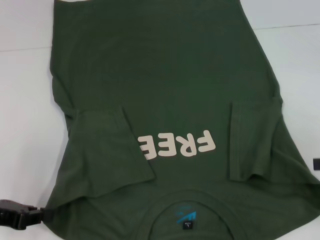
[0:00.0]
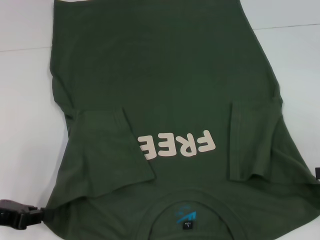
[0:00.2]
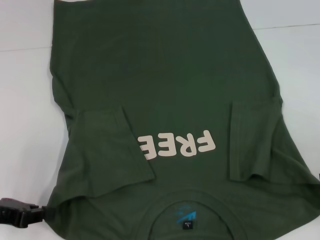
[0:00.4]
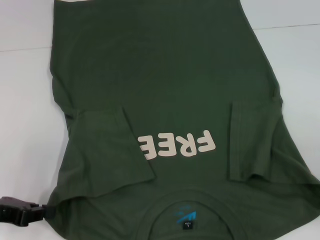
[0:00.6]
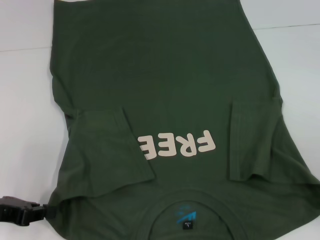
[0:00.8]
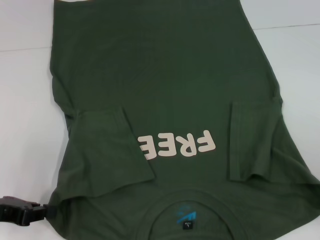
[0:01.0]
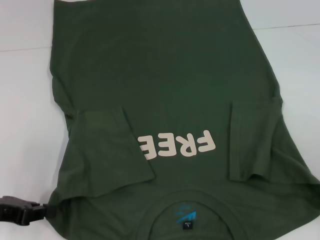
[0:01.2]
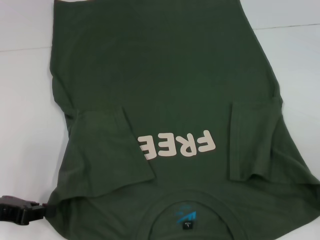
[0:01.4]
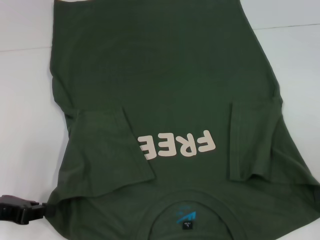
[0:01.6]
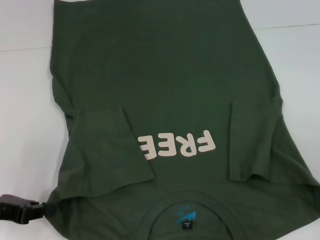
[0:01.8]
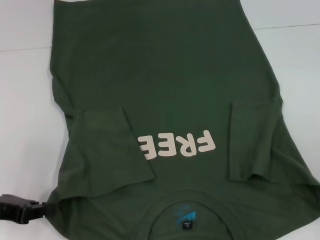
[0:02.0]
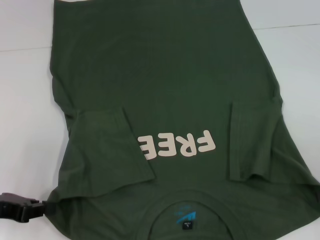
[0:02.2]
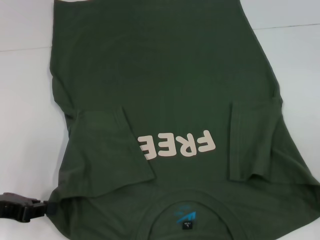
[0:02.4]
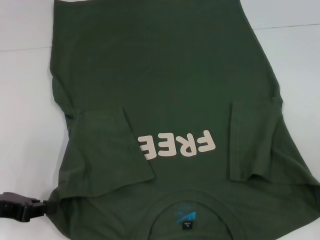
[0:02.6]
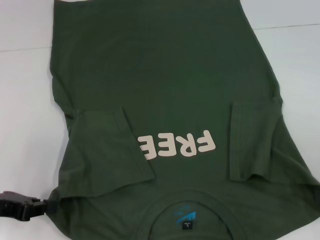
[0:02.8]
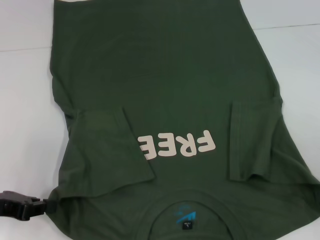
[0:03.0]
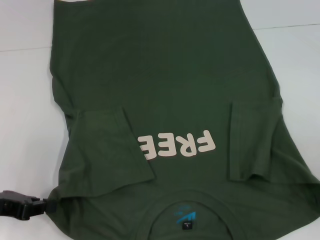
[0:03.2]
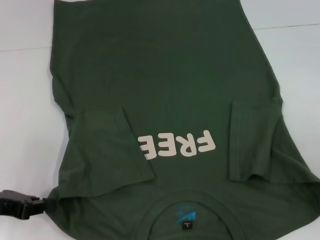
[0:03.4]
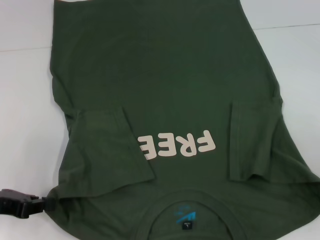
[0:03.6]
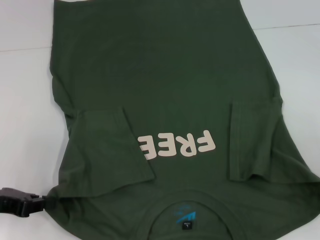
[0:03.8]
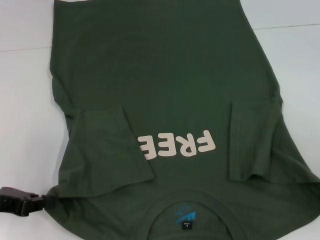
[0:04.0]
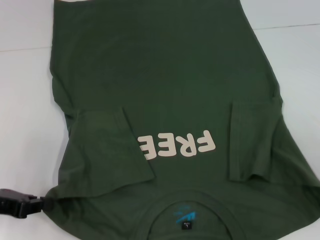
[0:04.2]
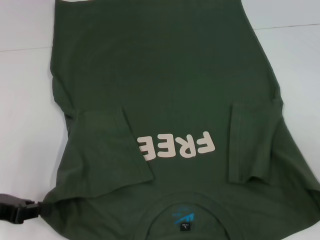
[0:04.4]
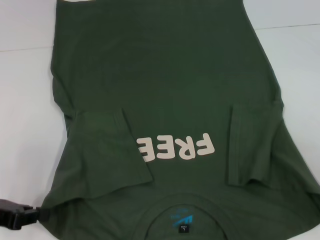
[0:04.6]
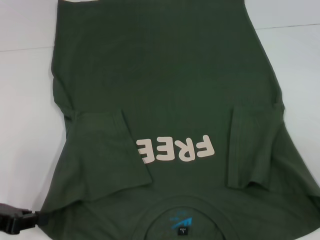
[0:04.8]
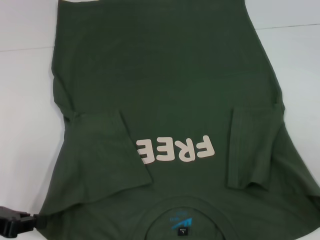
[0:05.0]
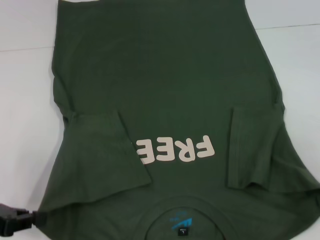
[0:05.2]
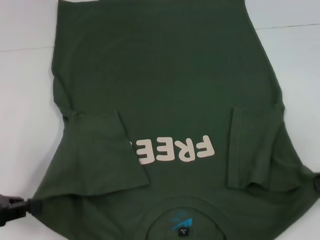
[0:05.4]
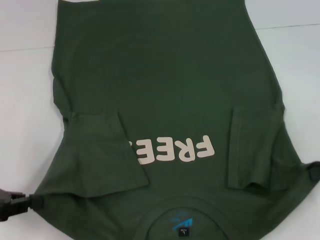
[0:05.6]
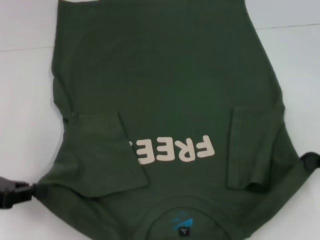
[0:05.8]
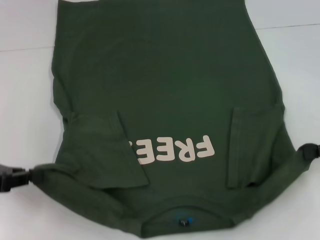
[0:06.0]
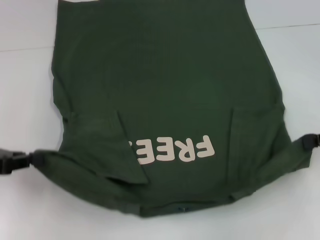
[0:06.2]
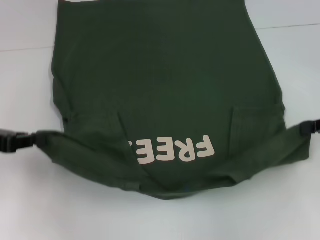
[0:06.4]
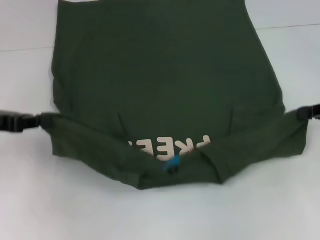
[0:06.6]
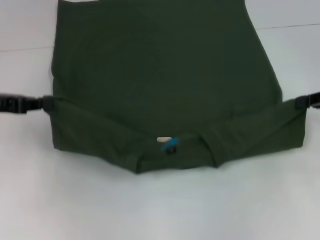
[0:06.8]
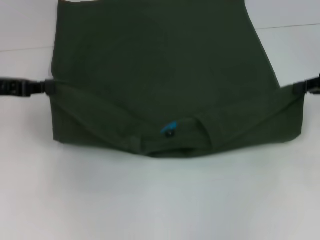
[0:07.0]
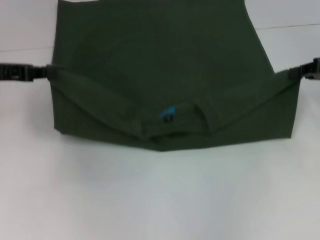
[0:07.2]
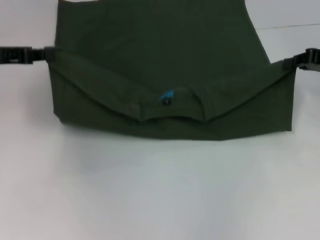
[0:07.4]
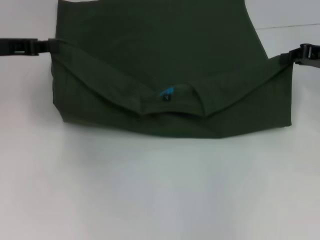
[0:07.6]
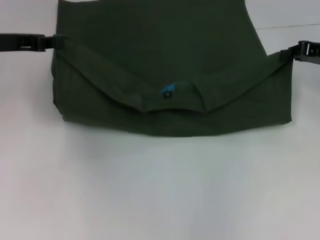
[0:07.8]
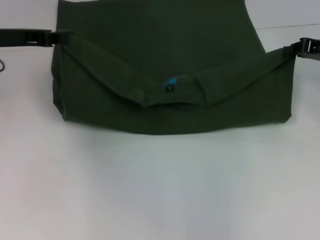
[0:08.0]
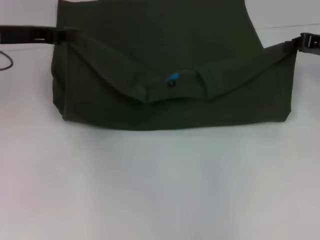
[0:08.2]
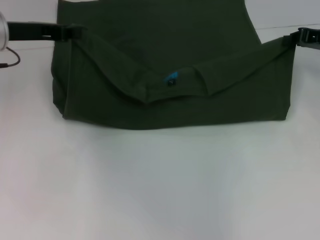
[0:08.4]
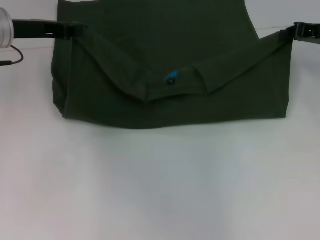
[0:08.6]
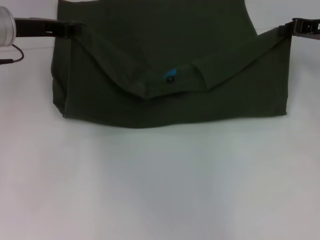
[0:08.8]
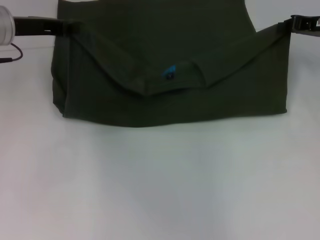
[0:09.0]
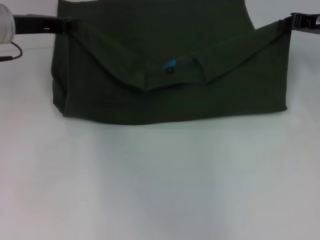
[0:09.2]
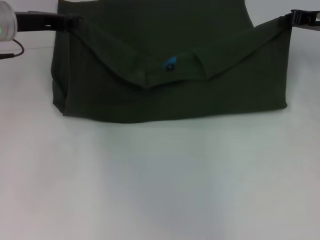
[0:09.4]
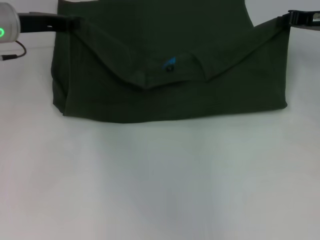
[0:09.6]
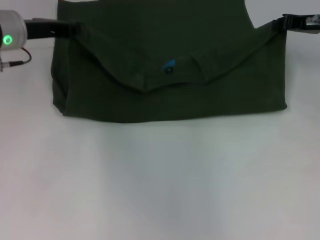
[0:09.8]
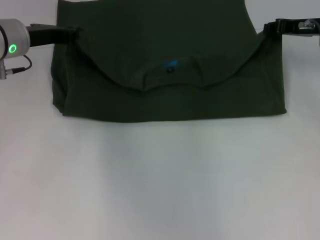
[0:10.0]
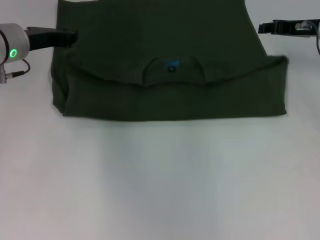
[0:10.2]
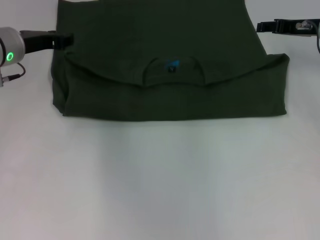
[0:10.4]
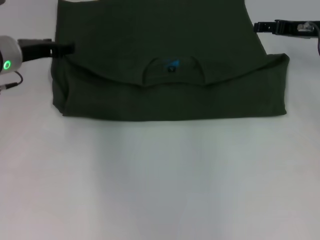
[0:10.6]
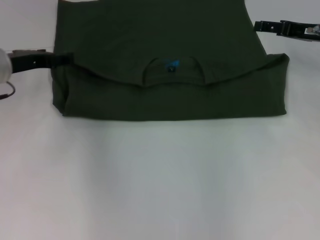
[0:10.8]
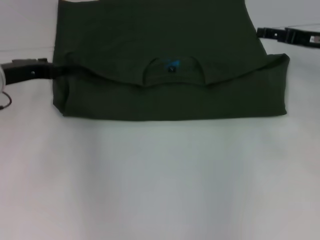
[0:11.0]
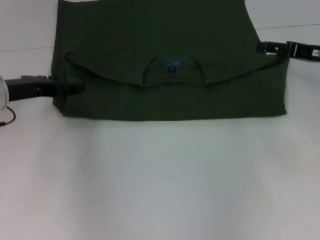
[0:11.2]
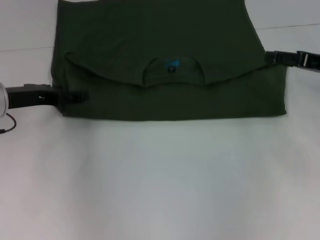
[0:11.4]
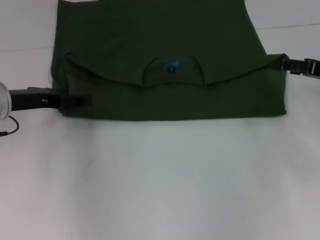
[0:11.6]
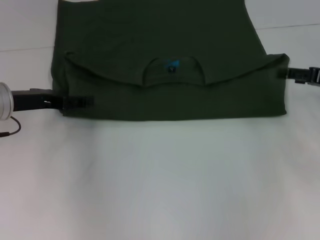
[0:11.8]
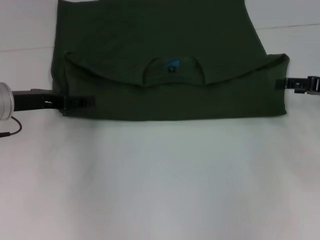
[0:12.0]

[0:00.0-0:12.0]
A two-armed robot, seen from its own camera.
Step, 0:00.0 to 0:10.2: Fold the clothes with your left hand.
Step, 0:00.0 to 0:10.2: Fold the clothes with your right hand.
0:00.0 to 0:01.6: The grippers stay close to where they were, moving slightly.
0:01.6 to 0:03.0: Both grippers stay put.
0:03.0 to 0:04.4: The right gripper closes its fingers.
0:04.4 to 0:06.0: The right gripper moves about 5 cm.
0:06.0 to 0:07.6: The right gripper moves forward, roughly 10 cm. The left gripper is displaced forward and upward by about 15 cm.
0:07.6 to 0:09.0: The left gripper moves to the right, roughly 5 cm.
0:09.0 to 0:10.4: The right gripper opens its fingers.
0:10.4 to 0:12.0: The right gripper travels backward and to the right by some 10 cm, and opens. Meanwhile the left gripper moves backward, about 5 cm, and opens.

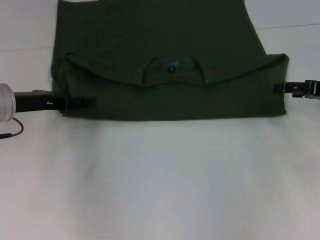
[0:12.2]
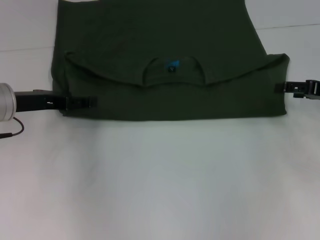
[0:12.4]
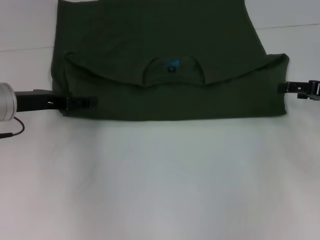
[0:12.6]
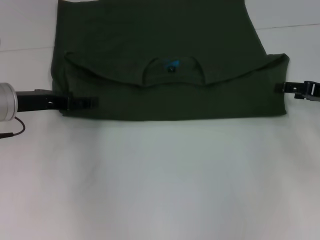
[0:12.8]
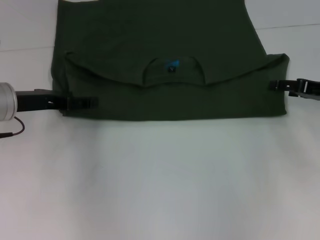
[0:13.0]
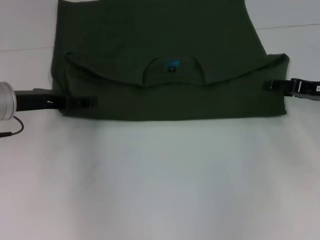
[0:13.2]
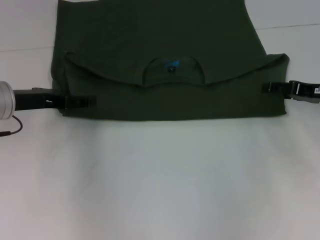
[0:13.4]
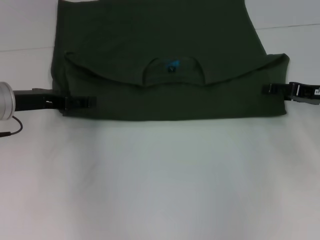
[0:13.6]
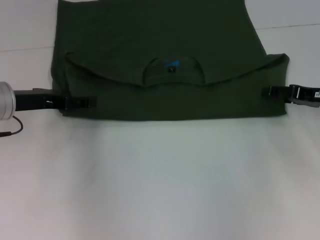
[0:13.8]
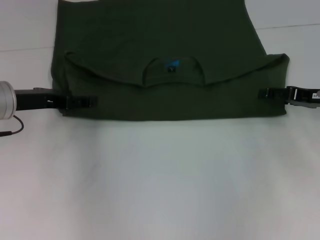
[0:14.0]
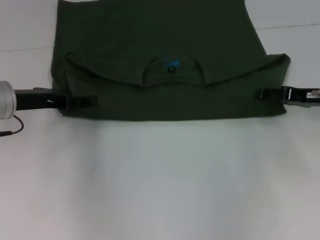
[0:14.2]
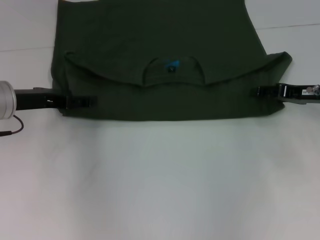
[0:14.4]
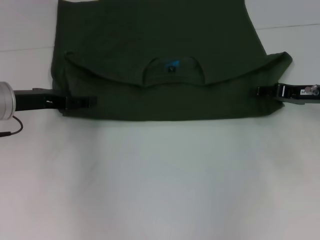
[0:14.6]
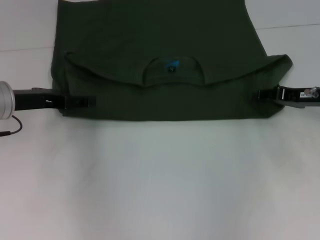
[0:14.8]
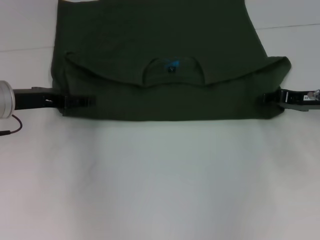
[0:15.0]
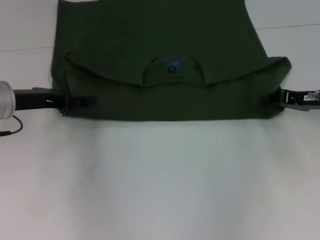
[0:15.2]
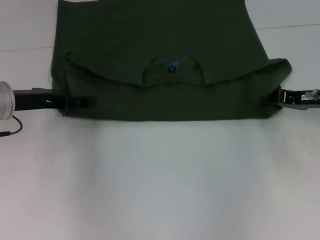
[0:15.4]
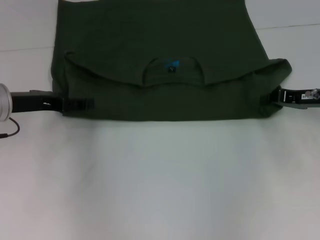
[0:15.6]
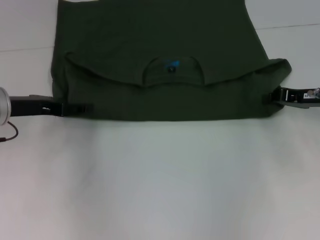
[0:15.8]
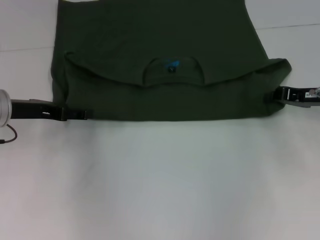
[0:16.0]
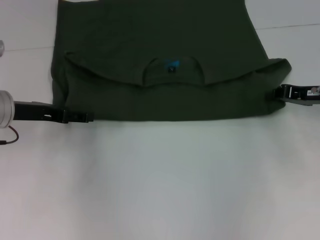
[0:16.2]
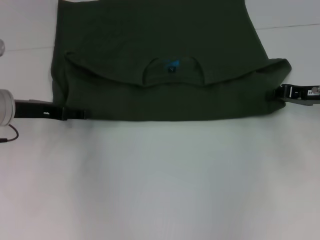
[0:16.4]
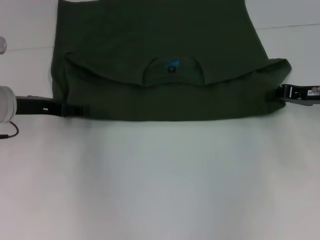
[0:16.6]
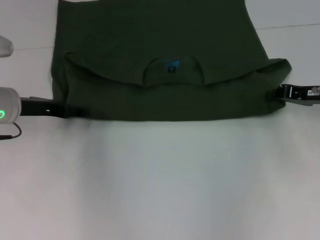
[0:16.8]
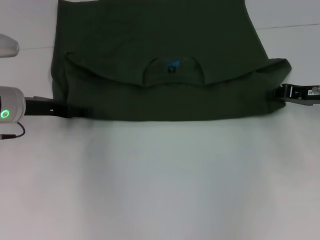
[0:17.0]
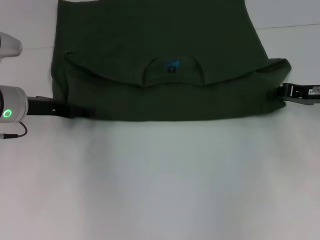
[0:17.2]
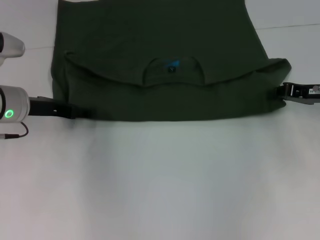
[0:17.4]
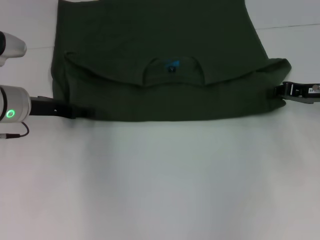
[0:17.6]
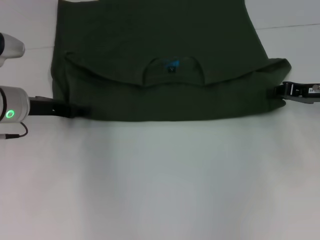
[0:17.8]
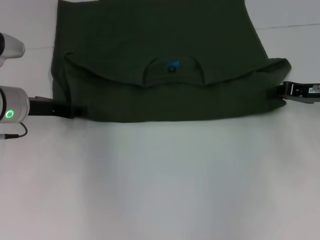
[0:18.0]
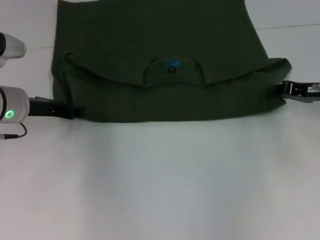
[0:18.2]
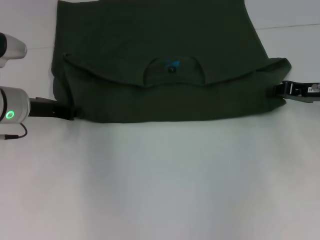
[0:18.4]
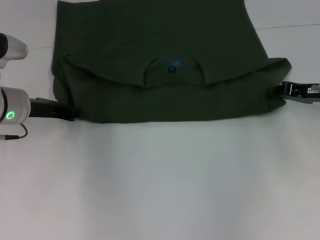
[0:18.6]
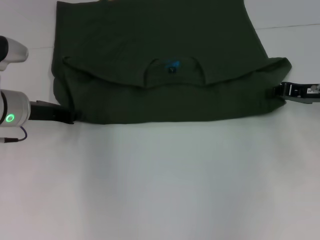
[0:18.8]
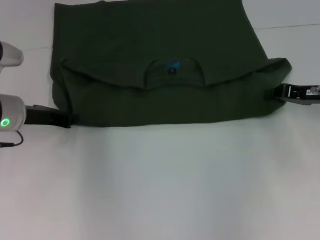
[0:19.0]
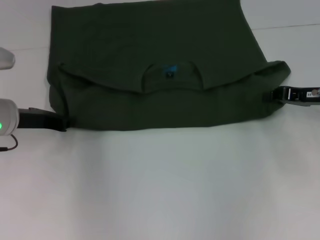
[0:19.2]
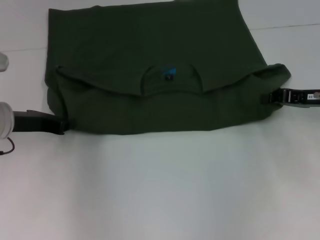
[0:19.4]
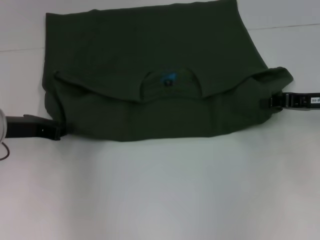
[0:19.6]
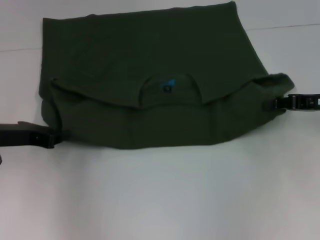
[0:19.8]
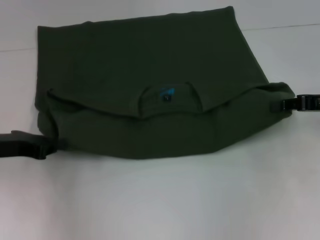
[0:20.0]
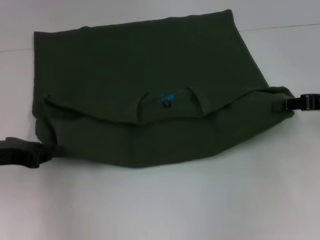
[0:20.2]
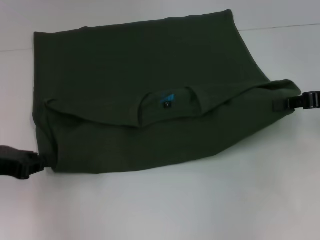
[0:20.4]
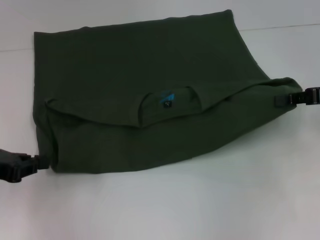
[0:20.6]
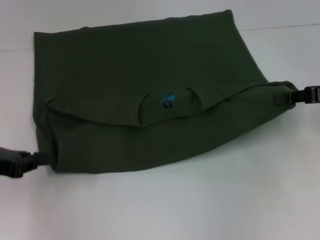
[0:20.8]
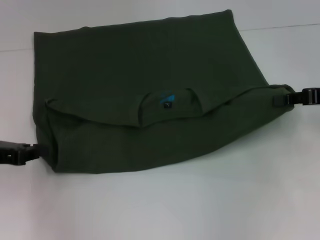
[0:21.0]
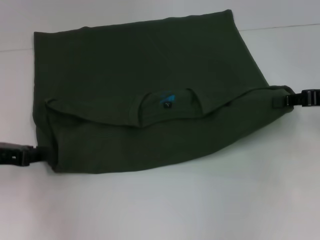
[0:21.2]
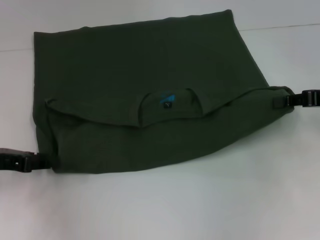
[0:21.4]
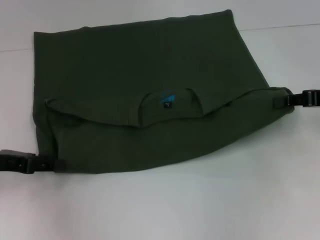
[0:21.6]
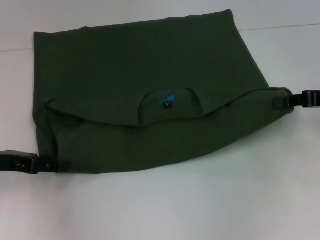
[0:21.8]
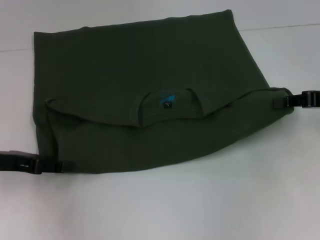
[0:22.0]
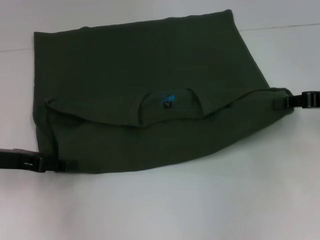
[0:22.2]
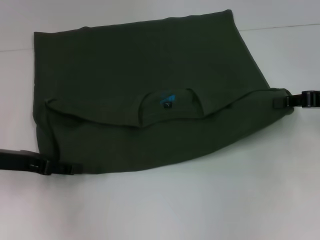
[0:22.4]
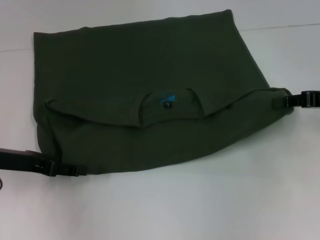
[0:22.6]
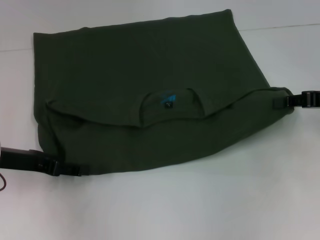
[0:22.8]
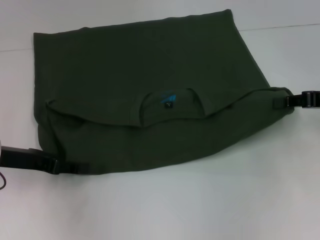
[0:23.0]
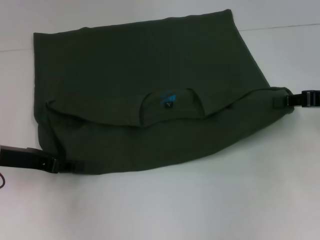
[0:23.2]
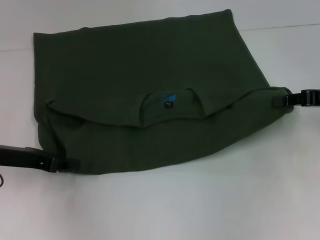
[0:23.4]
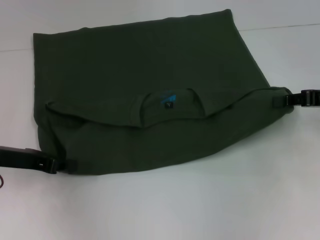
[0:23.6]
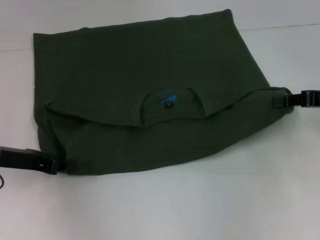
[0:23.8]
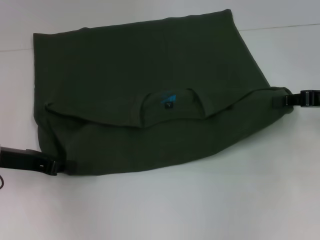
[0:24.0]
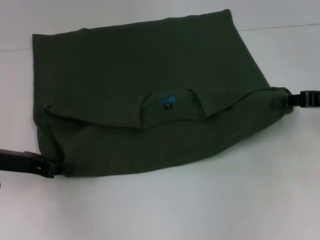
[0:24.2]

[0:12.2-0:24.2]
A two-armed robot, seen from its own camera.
0:12.2 to 0:13.8: The grippers stay close to where they were, moving slightly.
0:13.8 to 0:15.2: The right gripper closes up.
0:15.2 to 0:16.6: The right gripper closes its fingers.
0:16.6 to 0:18.2: The left gripper closes up.
0:18.2 to 0:19.8: The left gripper goes approximately 5 cm backward, and closes up.
0:21.2 to 0:22.6: The left gripper opens.
0:22.6 to 0:24.2: The left gripper closes its fingers.
